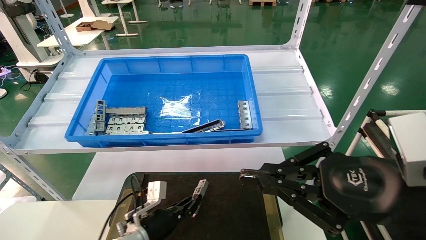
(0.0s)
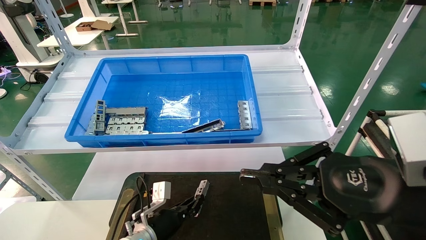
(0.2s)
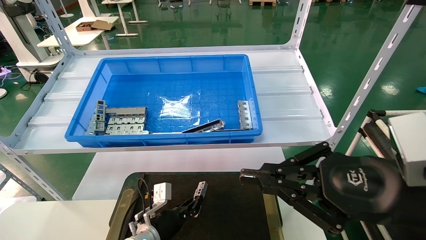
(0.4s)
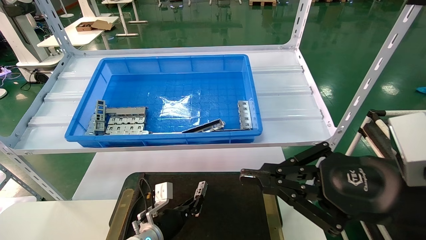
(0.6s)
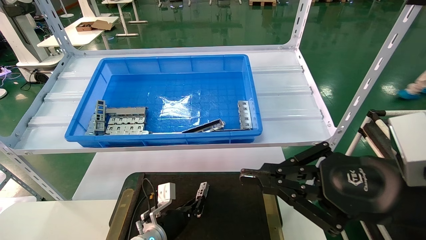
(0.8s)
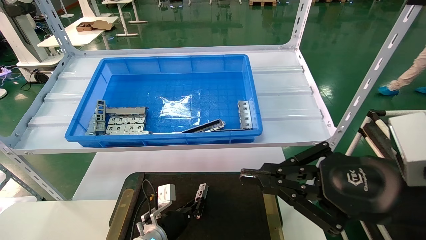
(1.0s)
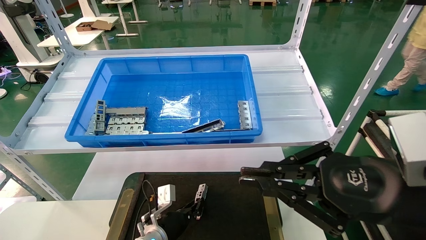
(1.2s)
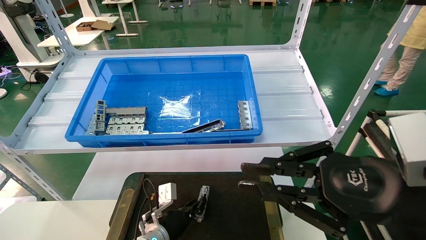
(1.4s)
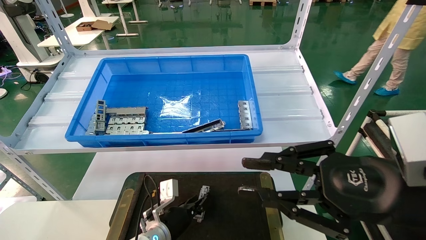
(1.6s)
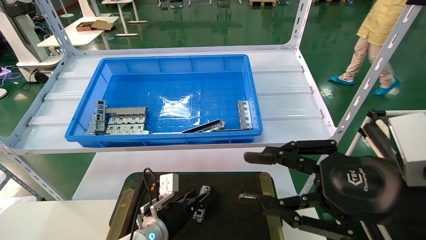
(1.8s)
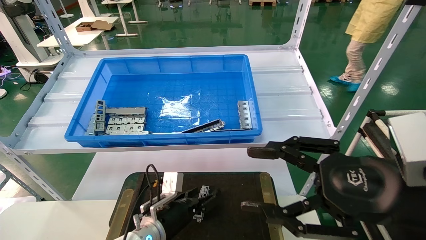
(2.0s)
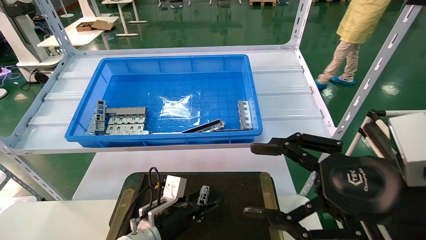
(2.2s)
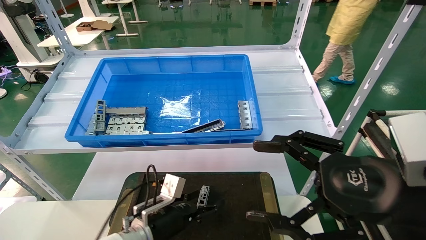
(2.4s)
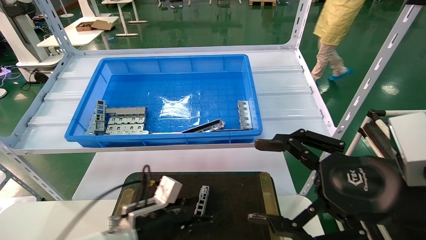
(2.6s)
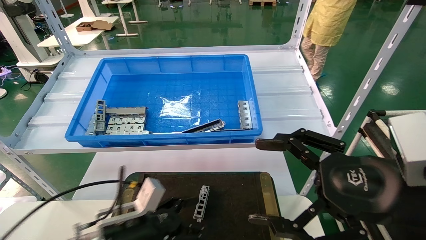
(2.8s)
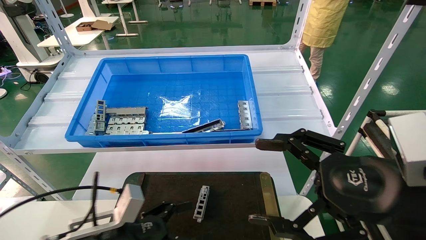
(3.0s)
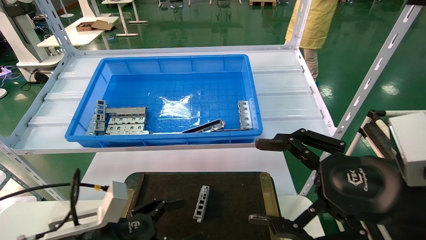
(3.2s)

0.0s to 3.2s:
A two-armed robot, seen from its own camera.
Task of the whole recording: Grasp the part with one hand and place it on the black container.
0.0s to 1.6s: The grippers make only small movements.
1.6s to 3.2s: The right gripper opens its fingers; the left gripper is displaced backward, to the left and upward by about 20 cm, and opens.

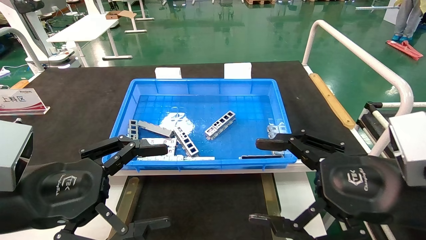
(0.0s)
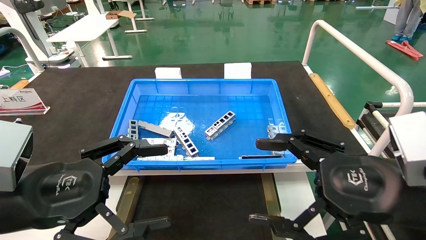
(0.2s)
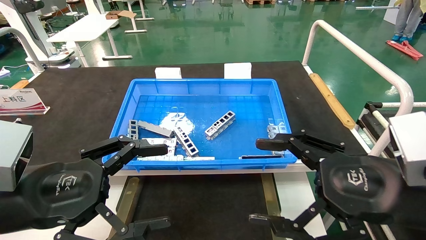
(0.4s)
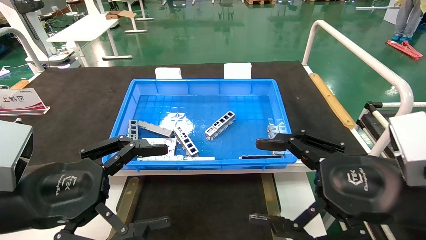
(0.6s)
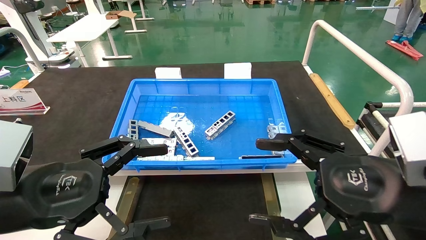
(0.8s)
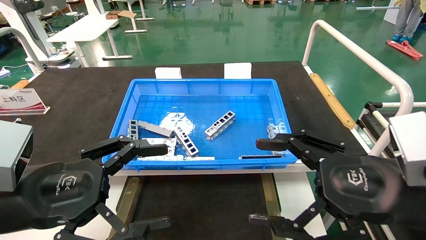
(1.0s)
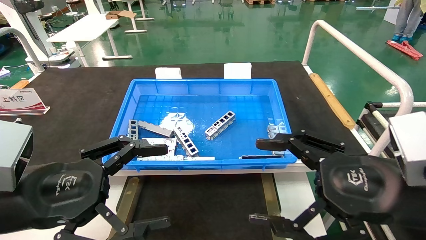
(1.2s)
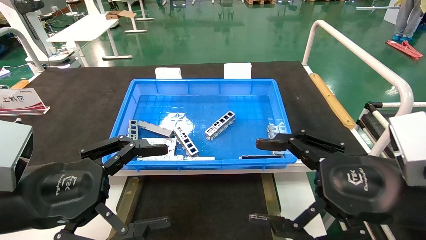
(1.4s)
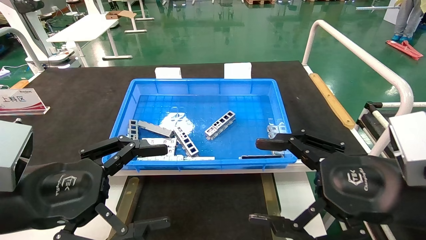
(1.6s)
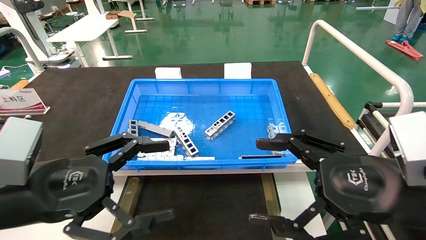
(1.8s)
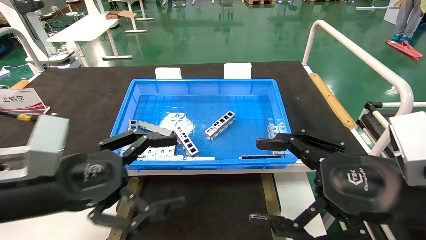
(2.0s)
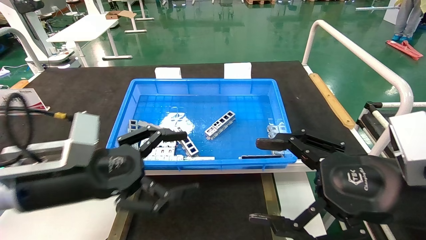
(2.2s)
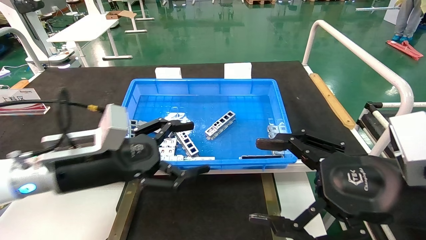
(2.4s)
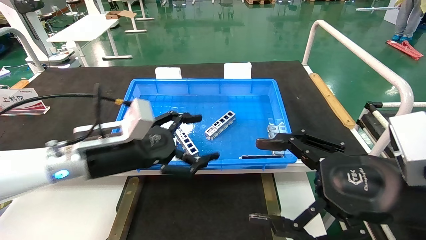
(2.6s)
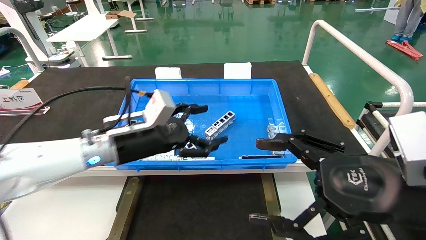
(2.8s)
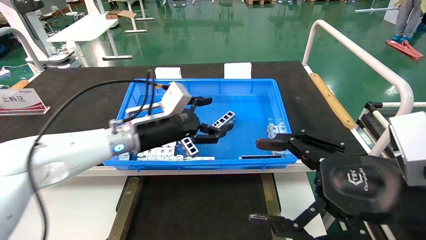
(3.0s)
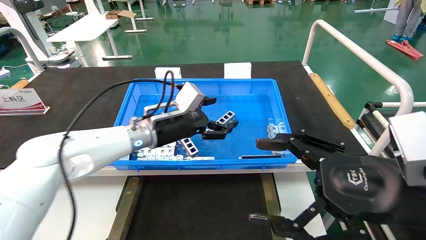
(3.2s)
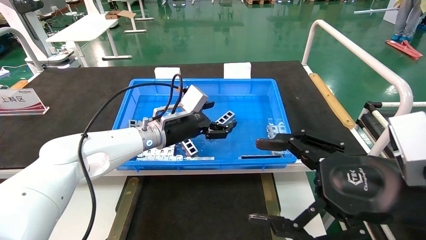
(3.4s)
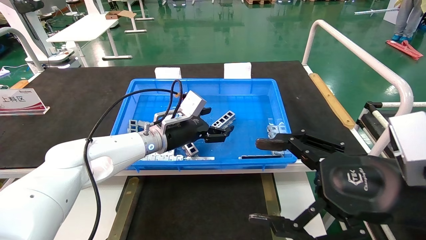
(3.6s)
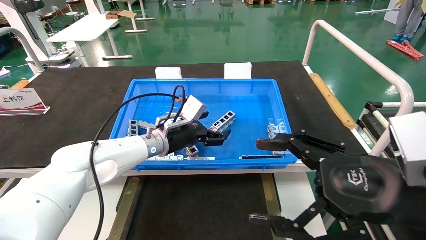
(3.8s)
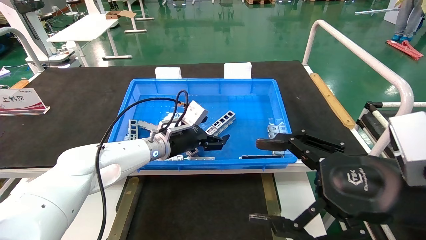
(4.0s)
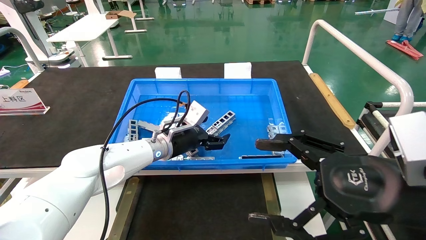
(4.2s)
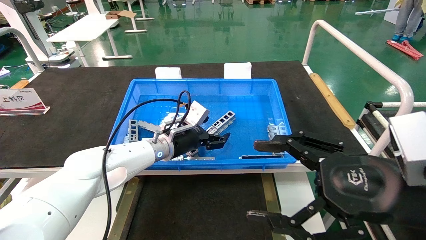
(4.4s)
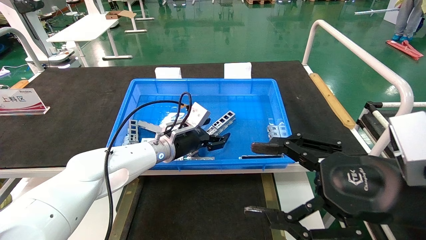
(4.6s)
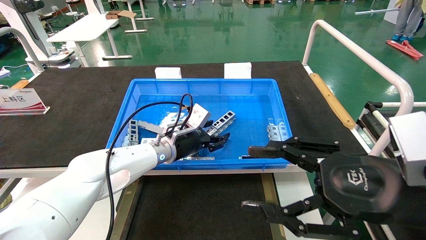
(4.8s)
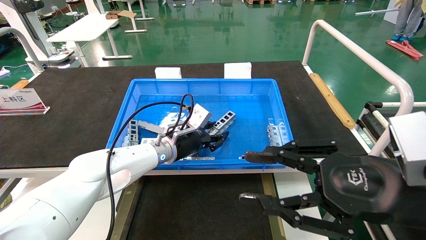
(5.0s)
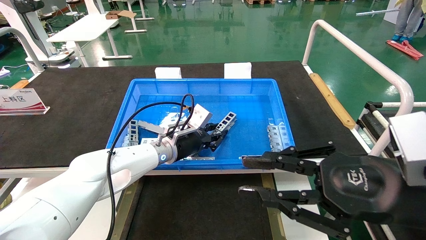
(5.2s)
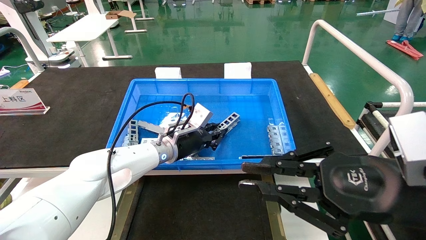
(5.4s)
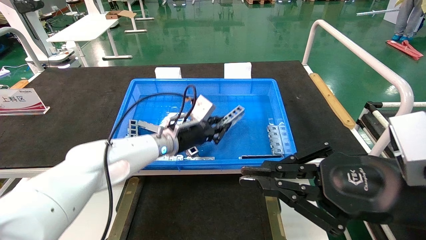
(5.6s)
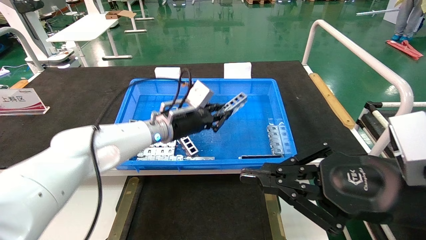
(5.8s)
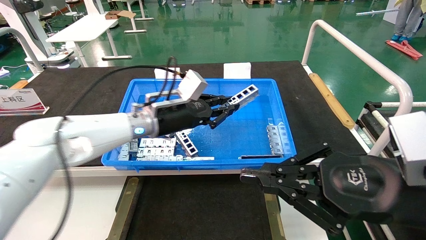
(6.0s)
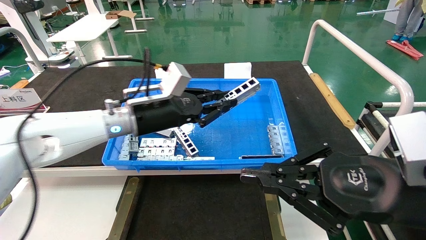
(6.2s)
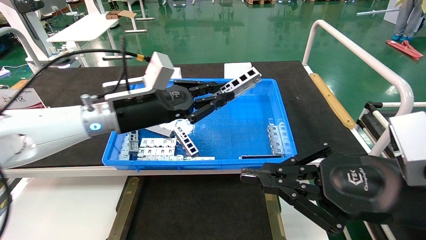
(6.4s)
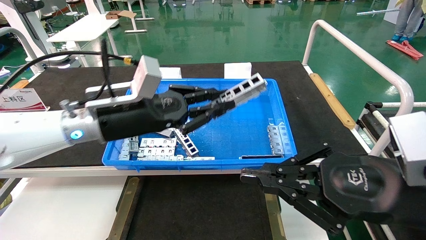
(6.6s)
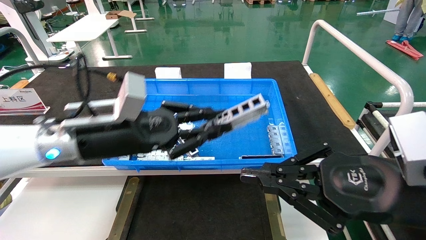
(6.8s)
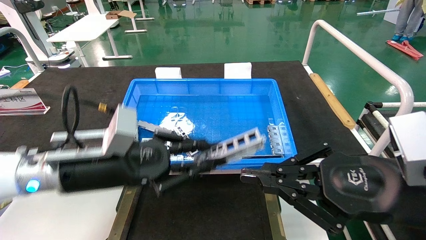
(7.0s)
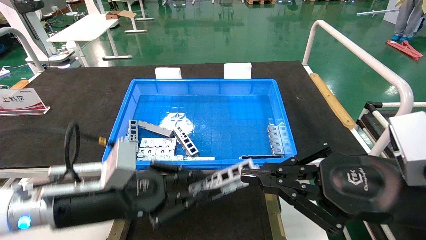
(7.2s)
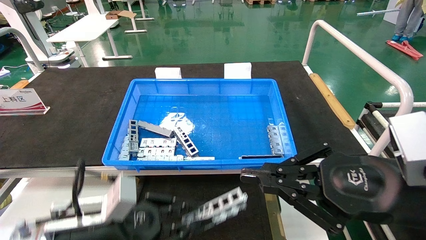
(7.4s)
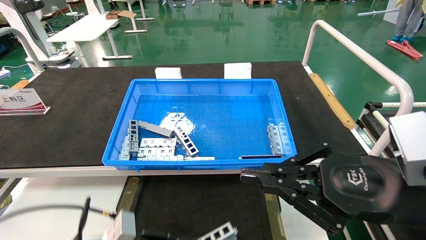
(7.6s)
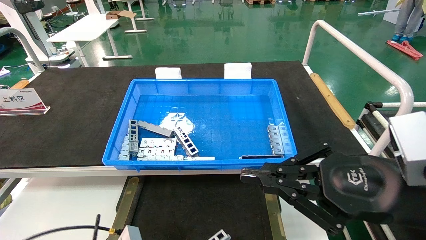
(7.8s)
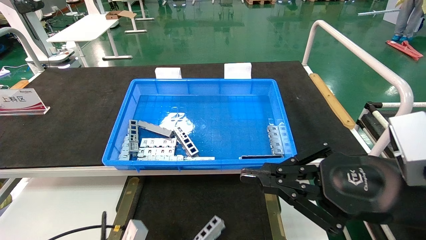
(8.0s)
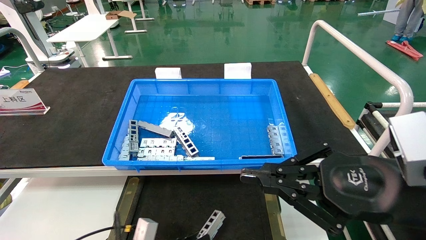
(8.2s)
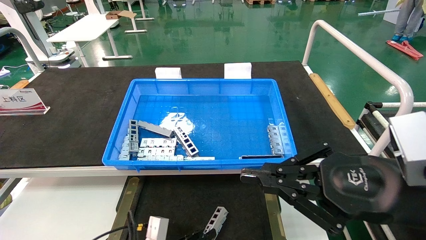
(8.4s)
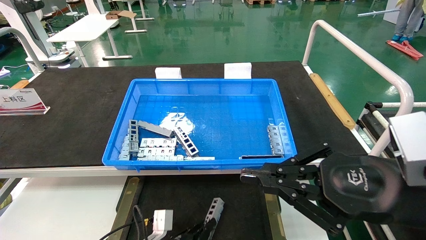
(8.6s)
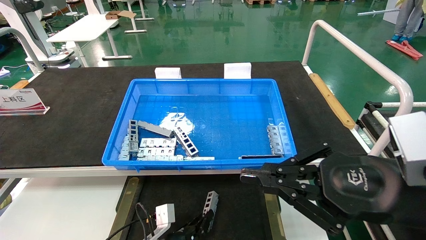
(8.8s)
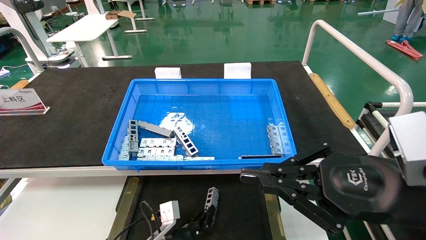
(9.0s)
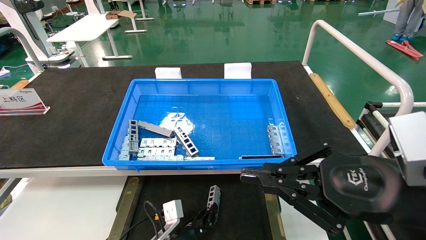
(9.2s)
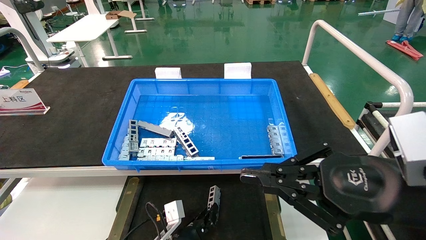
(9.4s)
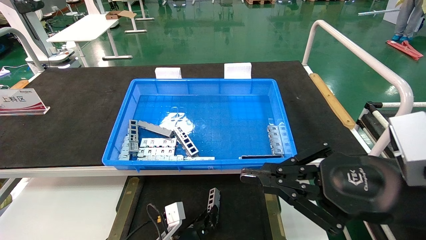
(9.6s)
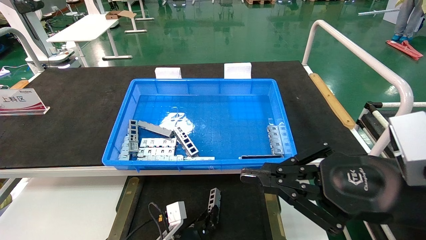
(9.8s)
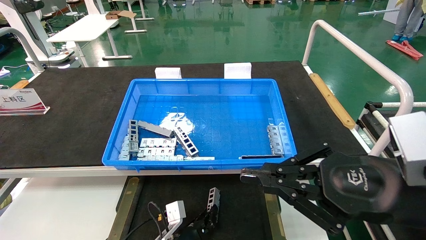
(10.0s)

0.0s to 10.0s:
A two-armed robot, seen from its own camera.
Task of the whole recording: Grasp the part with one hand and place it on the black container.
Step, 2.0s to 5.4s: Pick up the front USB bracket from the feeding area.
0.0s to 1.4s: Neither gripper changes place.
1.4s to 2.8s: The left gripper shifts approximately 20 cm forward and to the right.
2.8s to 4.2s: The left gripper shifts roughly 15 cm forward, to the right and downward.
4.2s to 5.8s: The right gripper closes, while the left gripper goes approximately 5 cm upward, and closes.
5.8s to 7.2s: The left gripper goes approximately 20 cm backward and to the left.
7.2s to 8.6s: The left gripper is displaced downward by some 25 cm.
8.6s to 10.0s: The left gripper goes some 5 cm to the right.

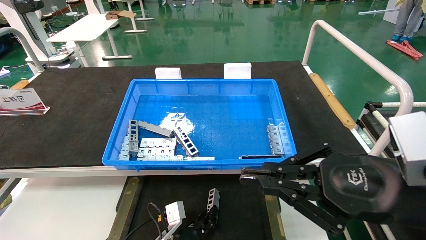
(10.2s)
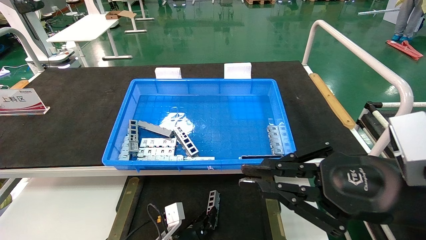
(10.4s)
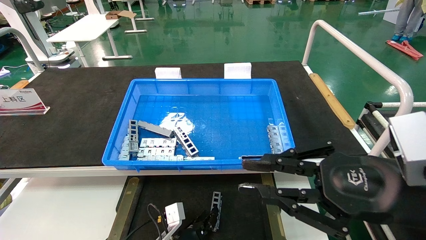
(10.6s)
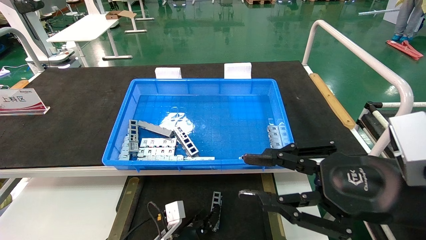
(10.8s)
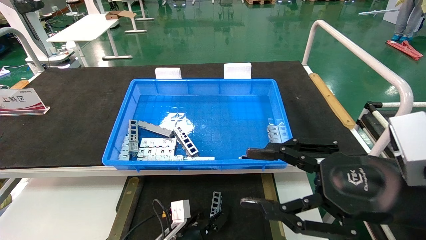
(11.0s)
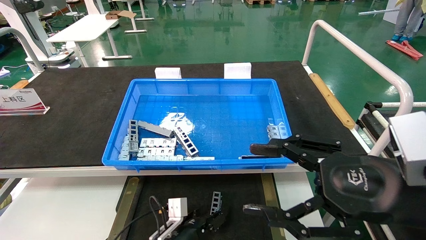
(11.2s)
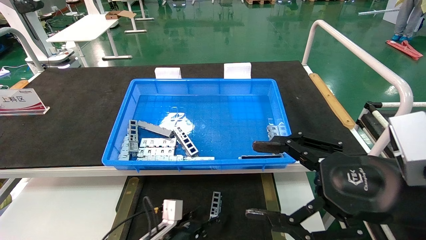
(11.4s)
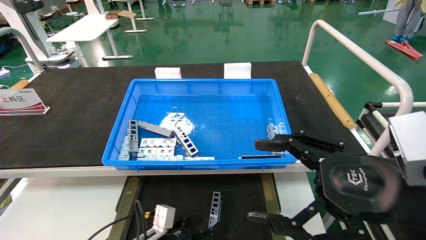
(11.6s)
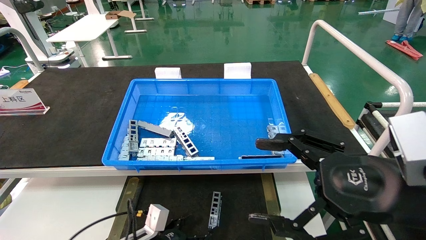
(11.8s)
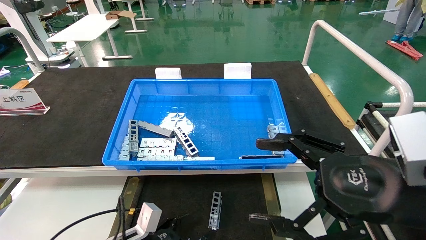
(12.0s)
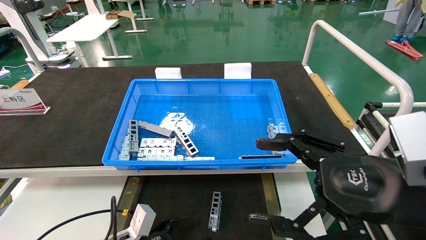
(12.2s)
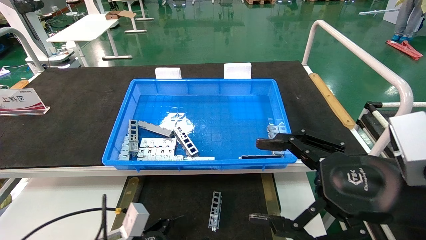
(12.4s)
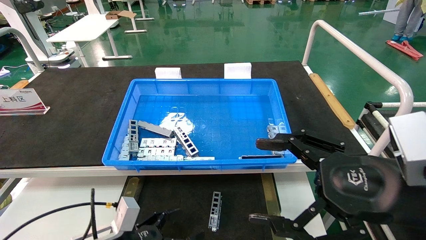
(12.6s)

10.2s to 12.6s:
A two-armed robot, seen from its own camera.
Task of the whole recording: Grasp the part with one hand and place it on the black container.
10.2s to 11.4s: The right gripper opens, while the left gripper shifts by about 5 cm, and opens up.
11.4s to 12.6s: The left gripper shifts approximately 15 cm to the left, upward and backward.

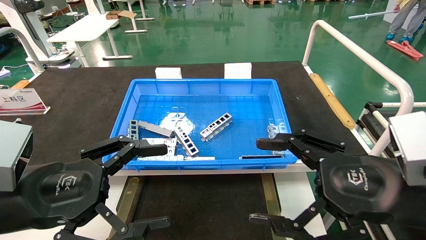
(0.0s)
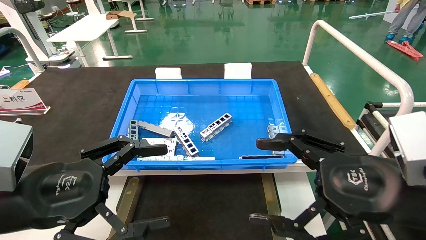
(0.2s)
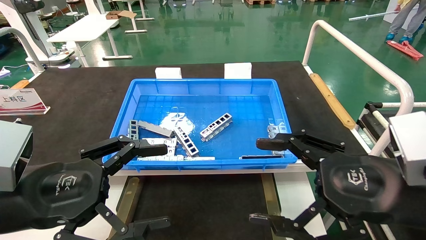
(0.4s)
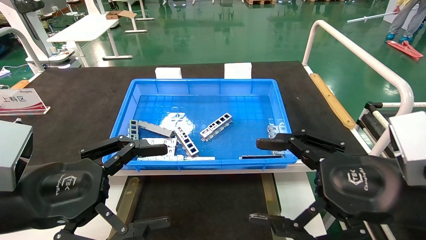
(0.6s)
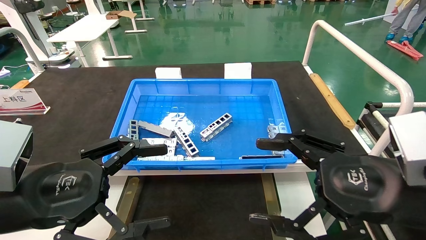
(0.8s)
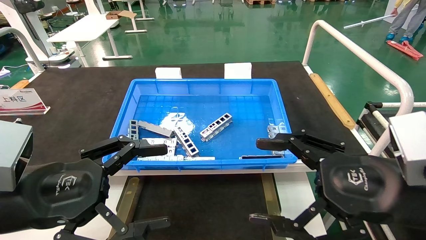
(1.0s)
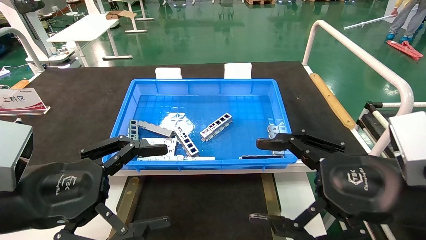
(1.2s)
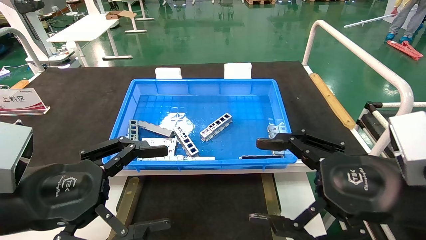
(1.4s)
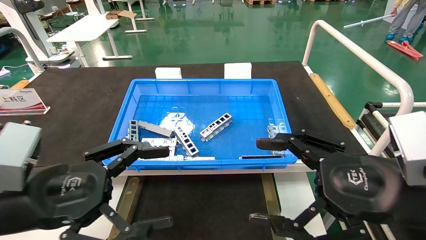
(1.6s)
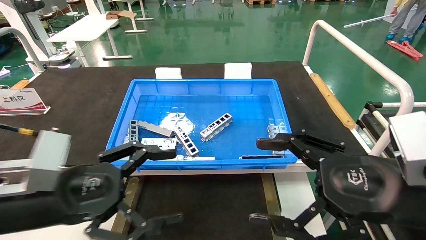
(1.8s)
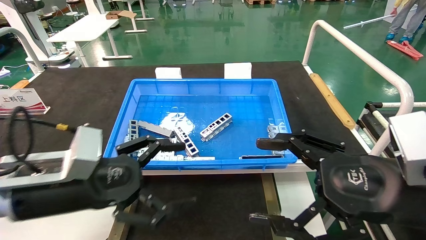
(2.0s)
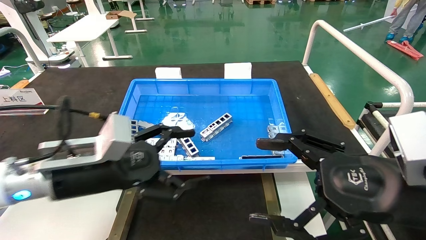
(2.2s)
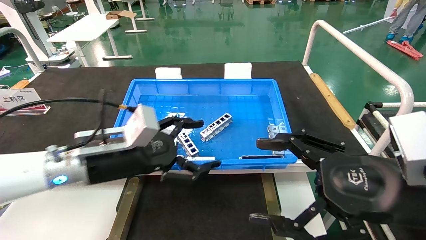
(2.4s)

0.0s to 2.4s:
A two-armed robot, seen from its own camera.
Task of the whole recording: Grasp the part with one hand and place it on the black container.
0.0s to 1.2s: Neither gripper changes place.
1.2s to 2.4s: The left gripper shifts approximately 15 cm forward and to the right.
